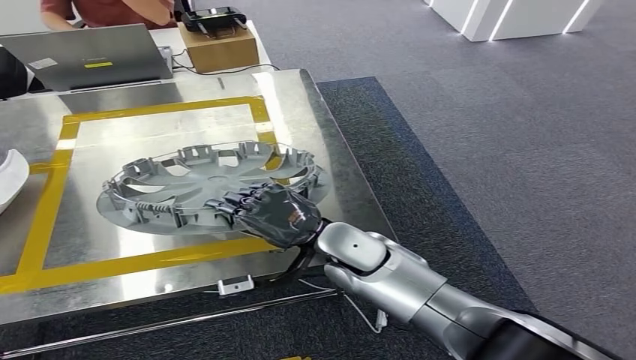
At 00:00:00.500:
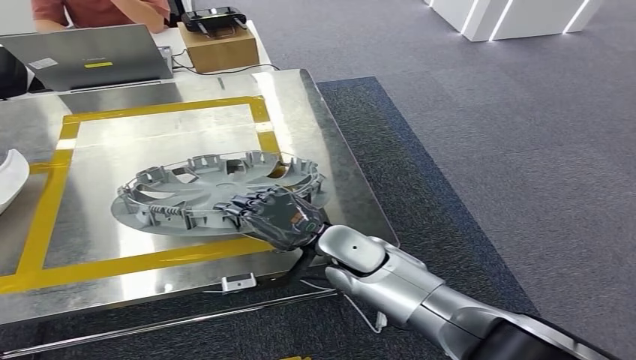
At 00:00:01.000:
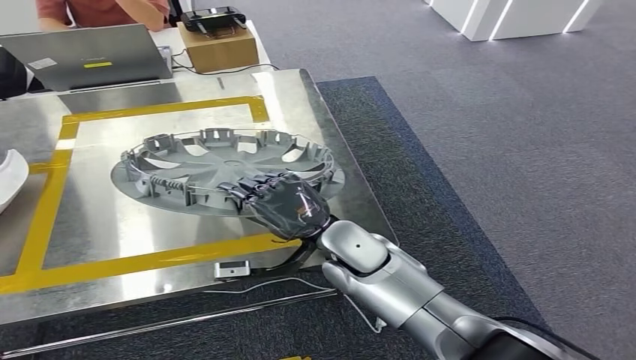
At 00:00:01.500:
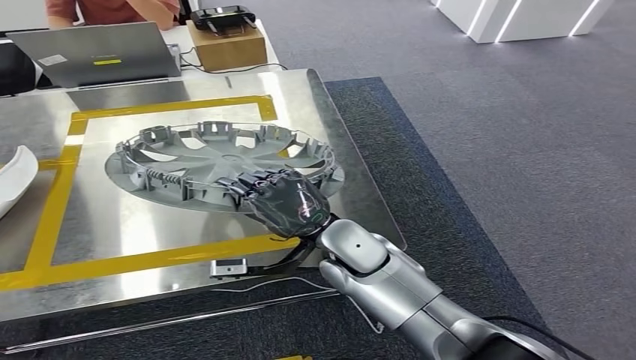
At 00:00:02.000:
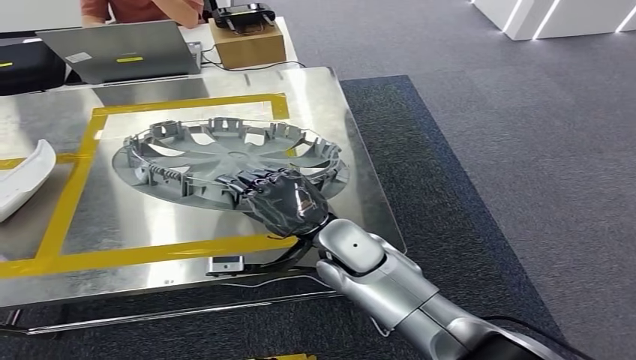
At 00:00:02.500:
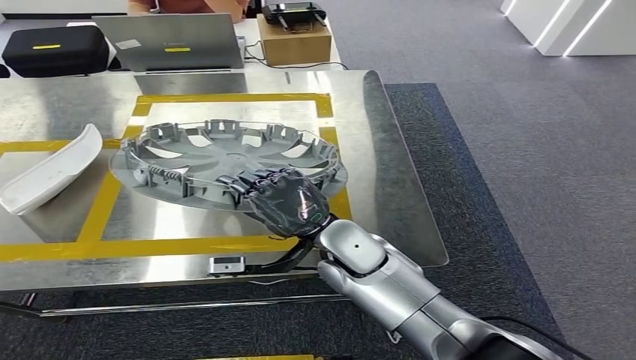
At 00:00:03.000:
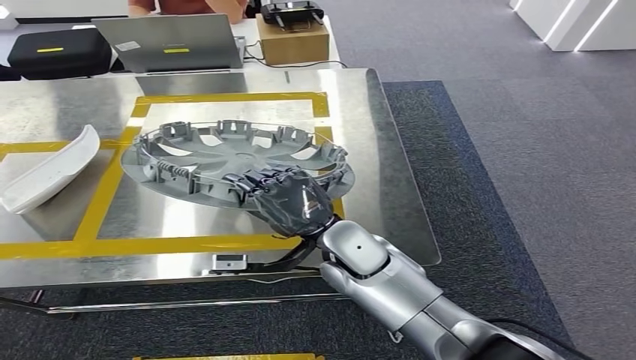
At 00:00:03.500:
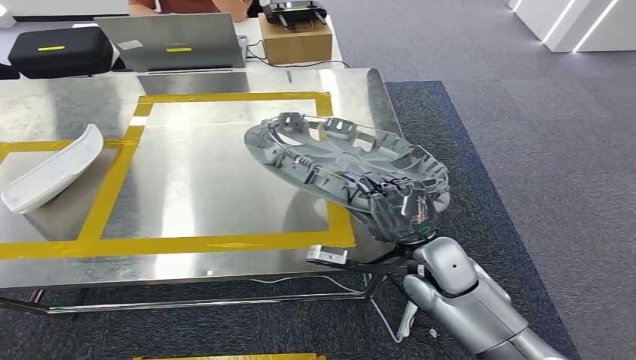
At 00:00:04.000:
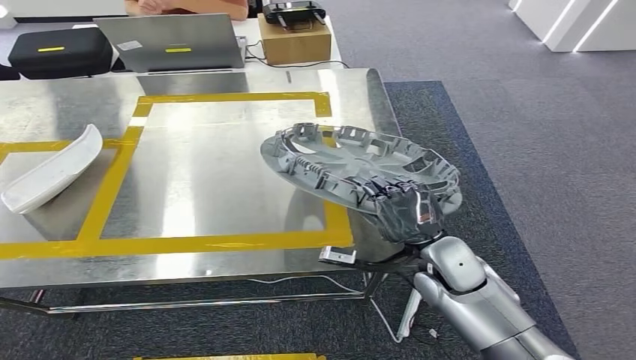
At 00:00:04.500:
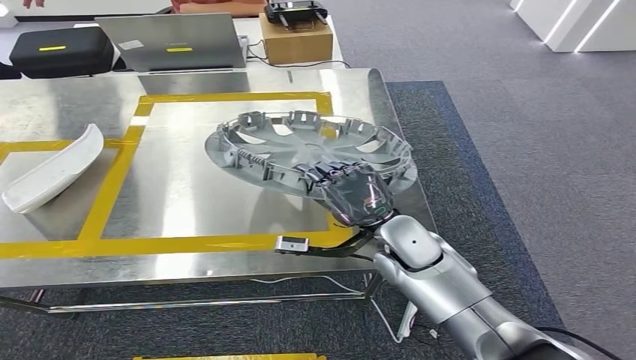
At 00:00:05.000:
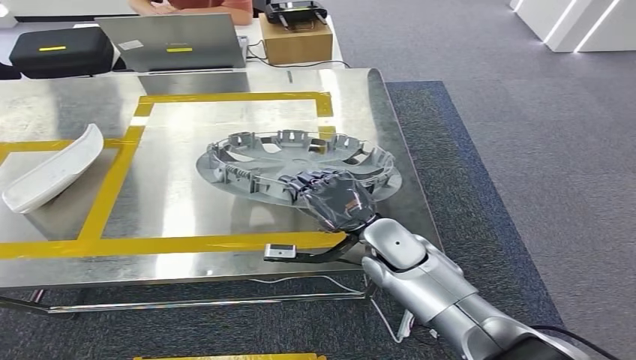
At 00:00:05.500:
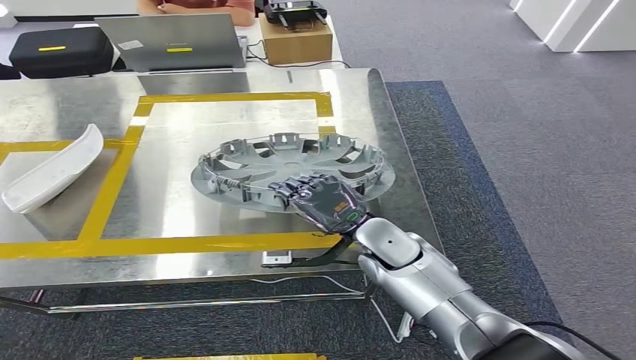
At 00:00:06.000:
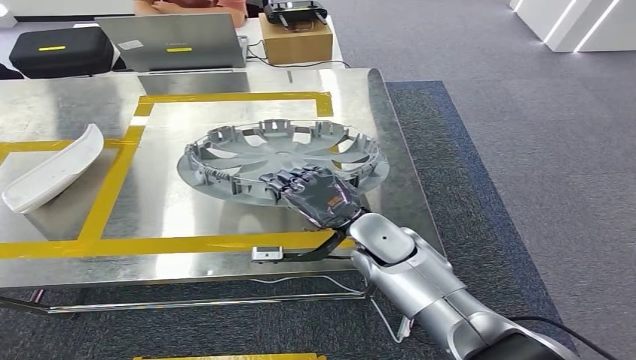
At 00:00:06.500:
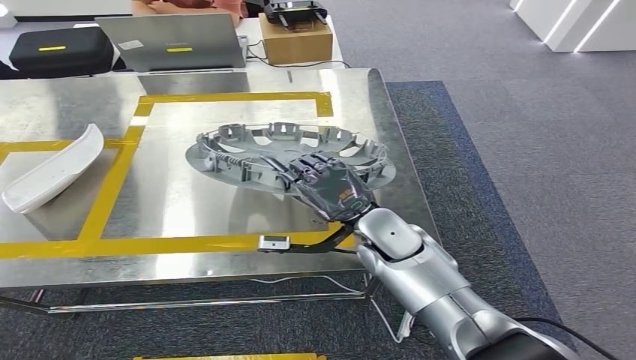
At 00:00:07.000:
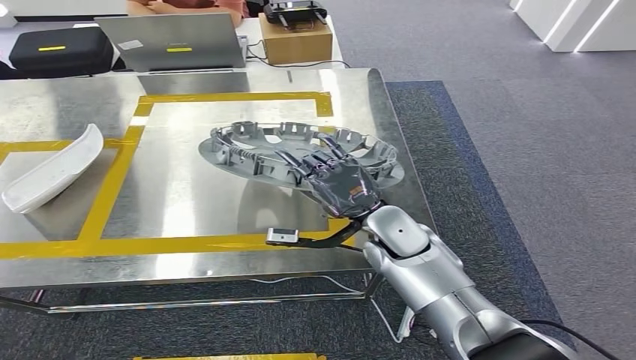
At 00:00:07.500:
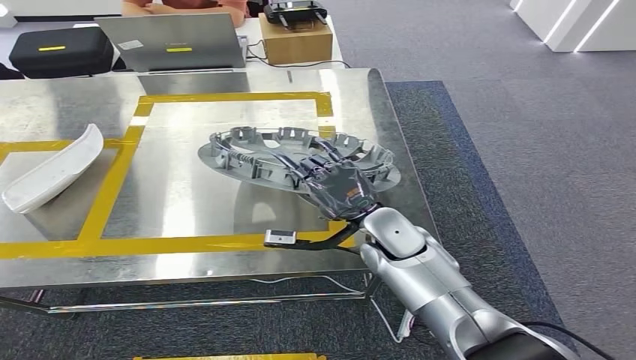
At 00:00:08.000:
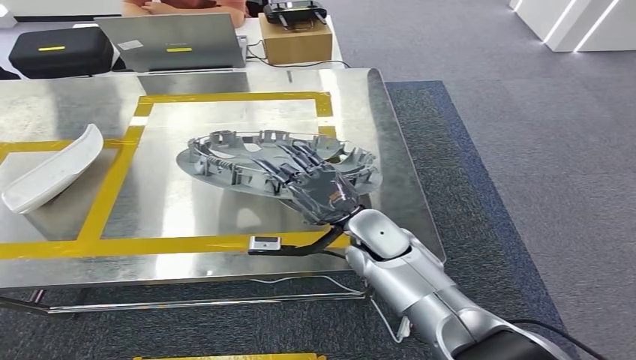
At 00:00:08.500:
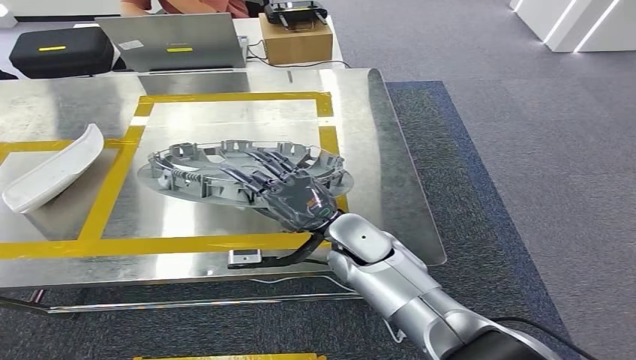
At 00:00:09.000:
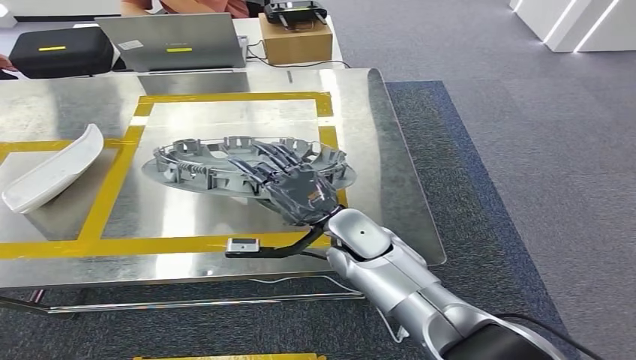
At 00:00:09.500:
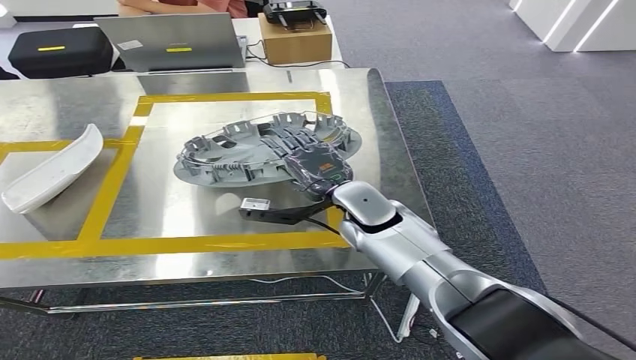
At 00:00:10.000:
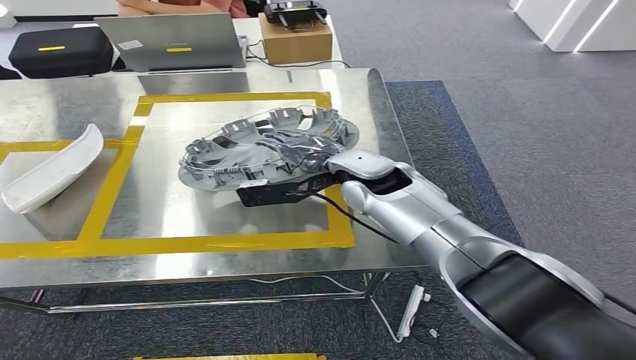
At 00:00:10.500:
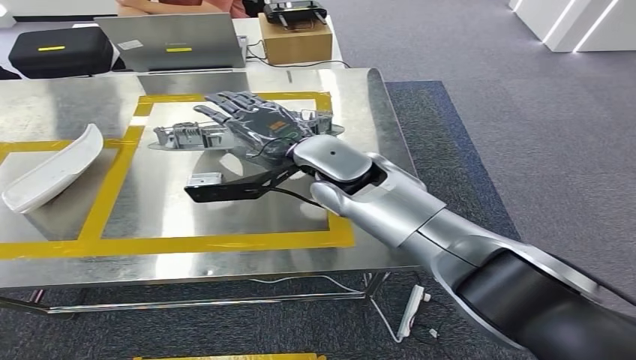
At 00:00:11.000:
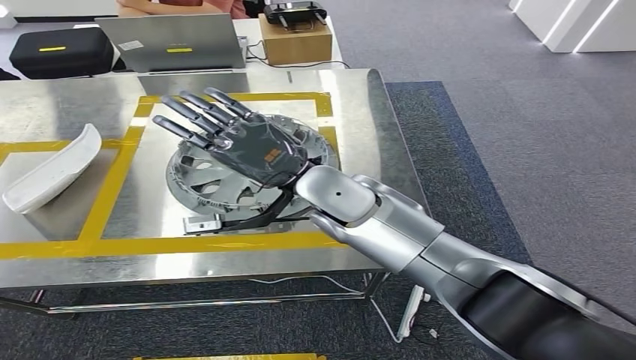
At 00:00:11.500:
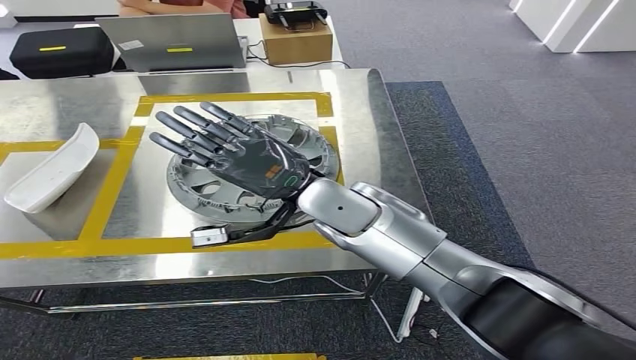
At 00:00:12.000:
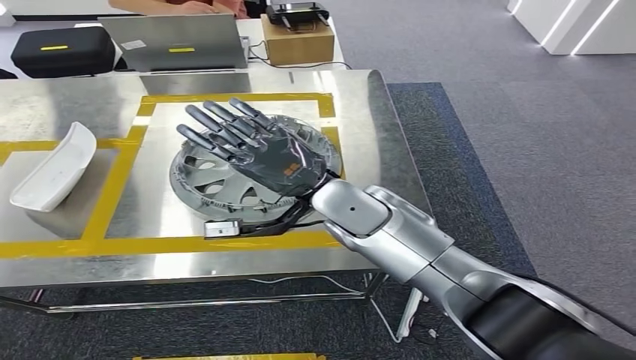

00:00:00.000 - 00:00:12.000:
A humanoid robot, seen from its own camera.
00:00:04.000 - 00:00:06.000: The right hand heads to the left, covering approximately 10 cm.
00:00:06.000 - 00:00:08.000: The hands stay close to where they were, moving slightly.
00:00:08.000 - 00:00:10.000: The right hand moves upward and forward, about 10 cm.

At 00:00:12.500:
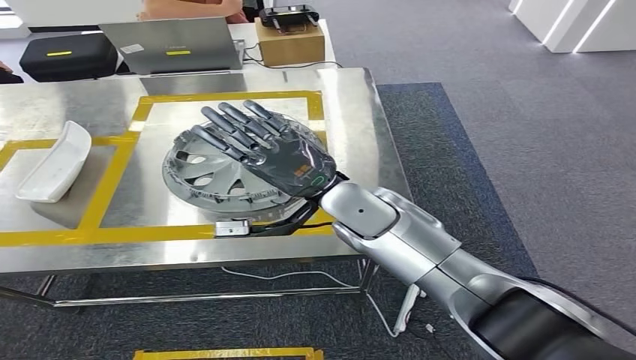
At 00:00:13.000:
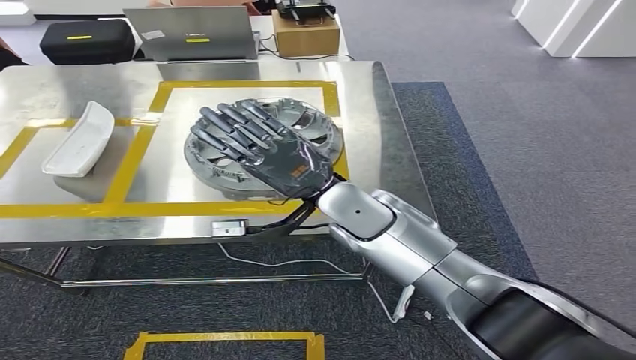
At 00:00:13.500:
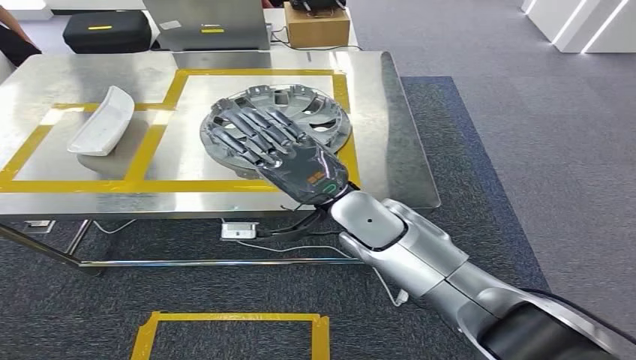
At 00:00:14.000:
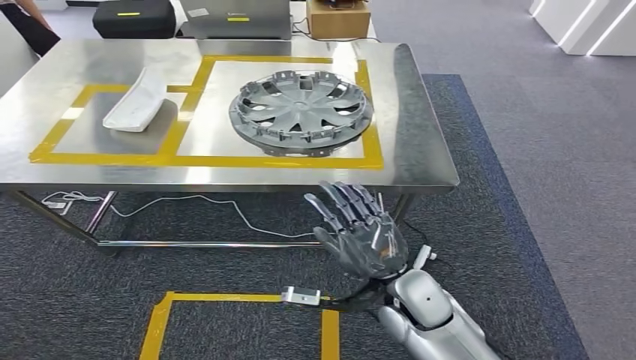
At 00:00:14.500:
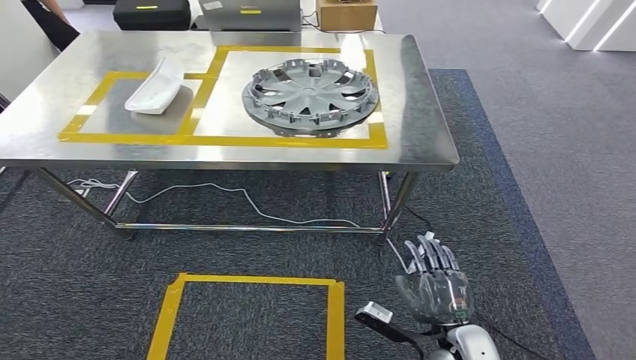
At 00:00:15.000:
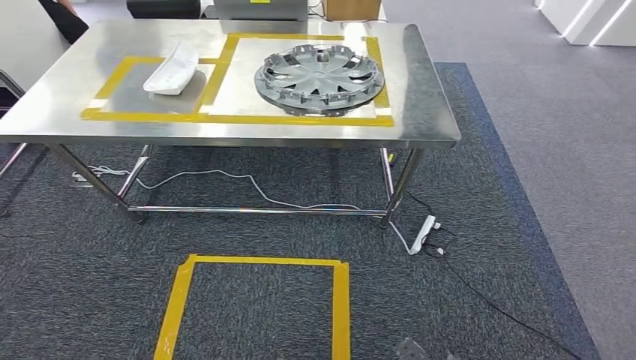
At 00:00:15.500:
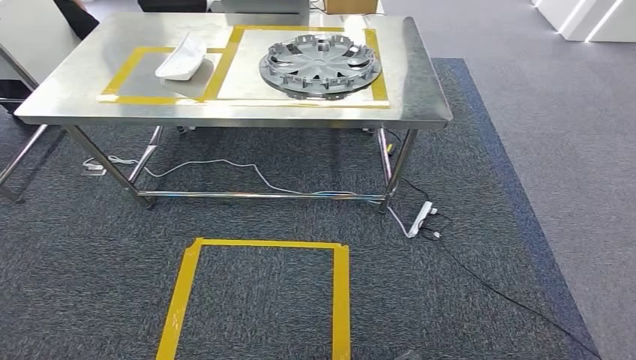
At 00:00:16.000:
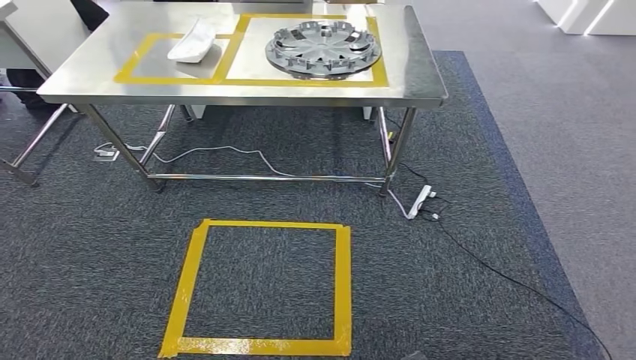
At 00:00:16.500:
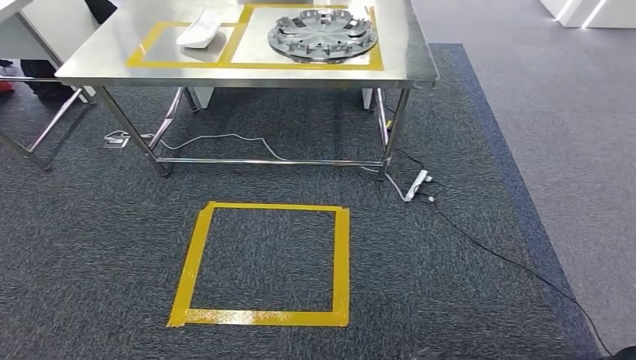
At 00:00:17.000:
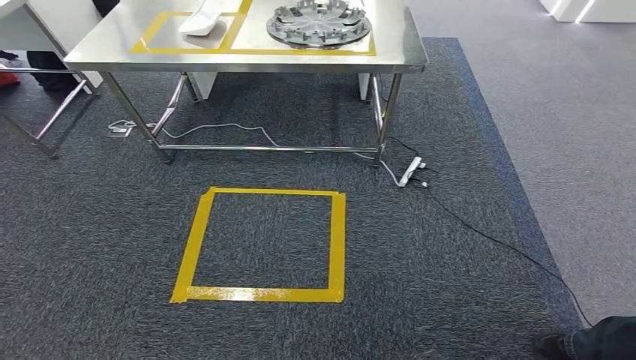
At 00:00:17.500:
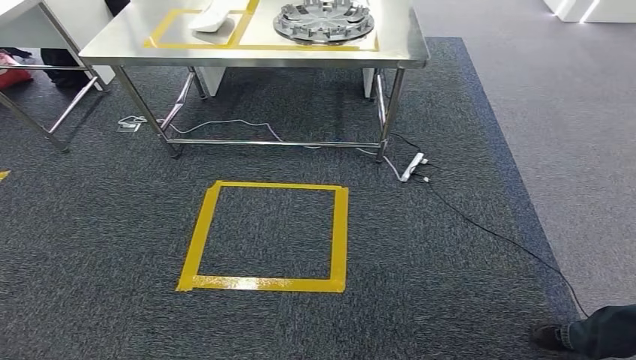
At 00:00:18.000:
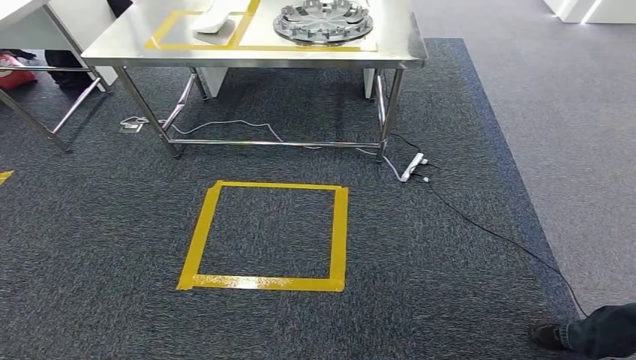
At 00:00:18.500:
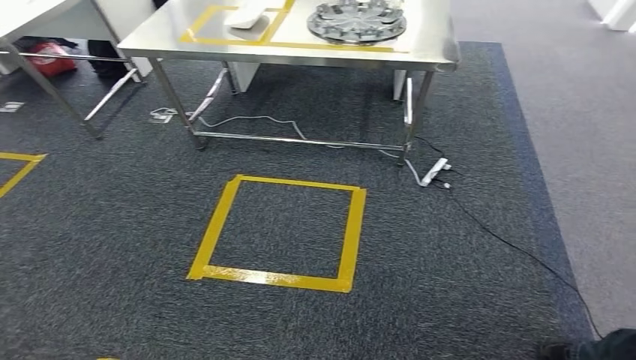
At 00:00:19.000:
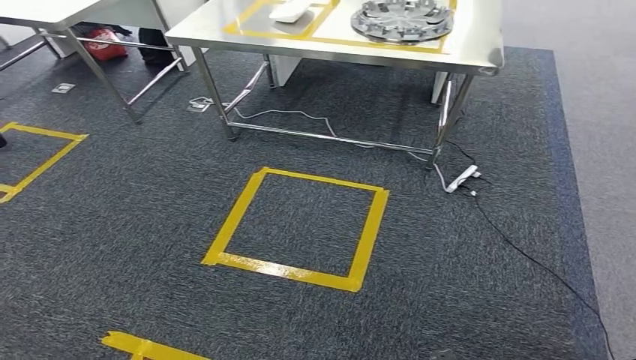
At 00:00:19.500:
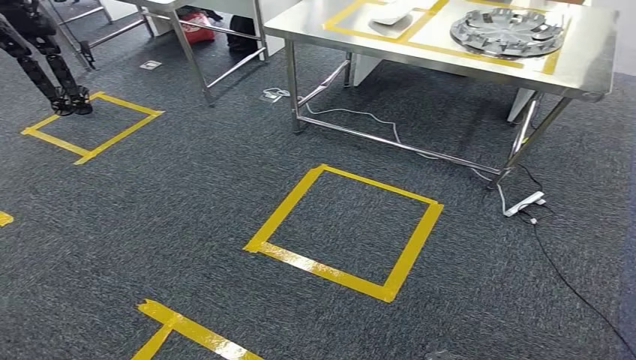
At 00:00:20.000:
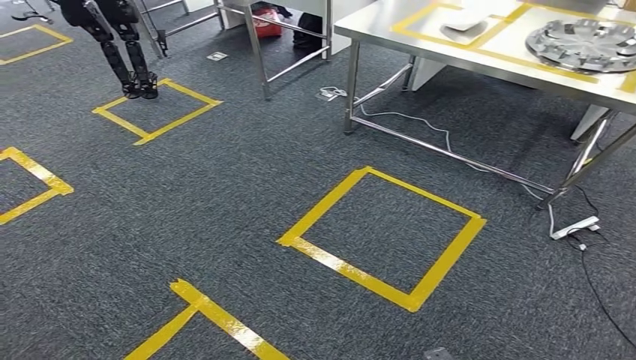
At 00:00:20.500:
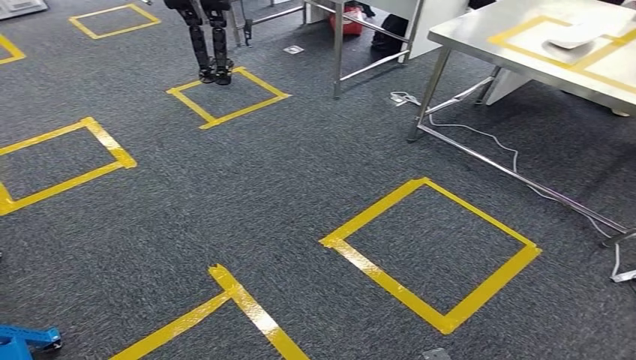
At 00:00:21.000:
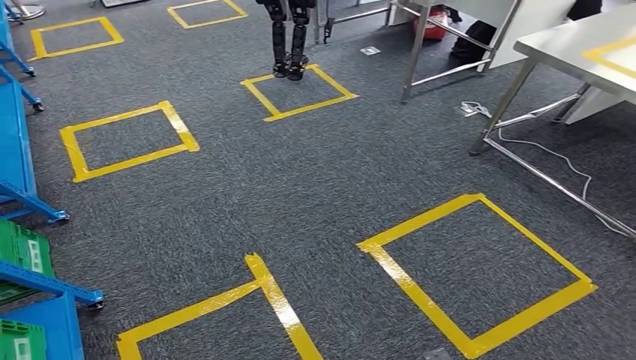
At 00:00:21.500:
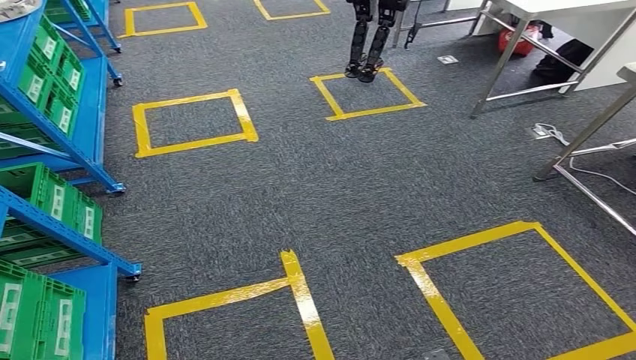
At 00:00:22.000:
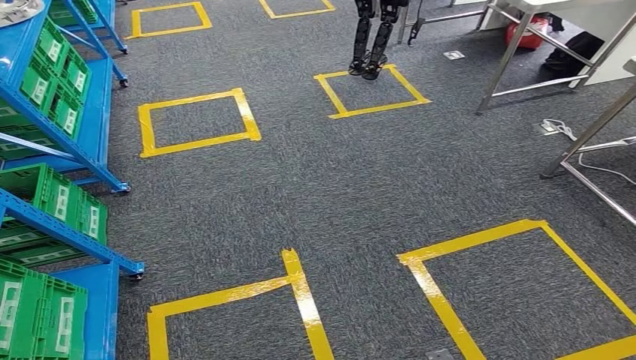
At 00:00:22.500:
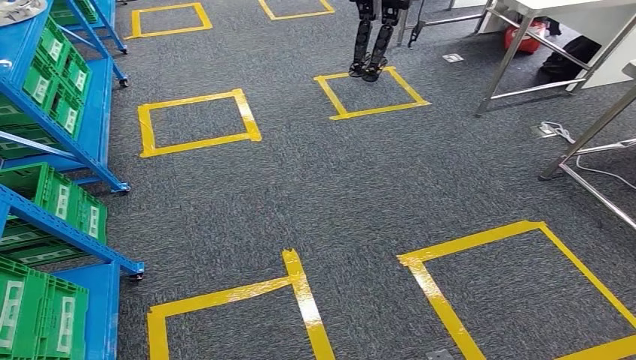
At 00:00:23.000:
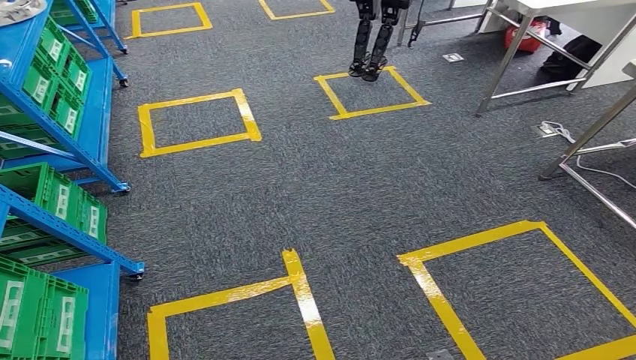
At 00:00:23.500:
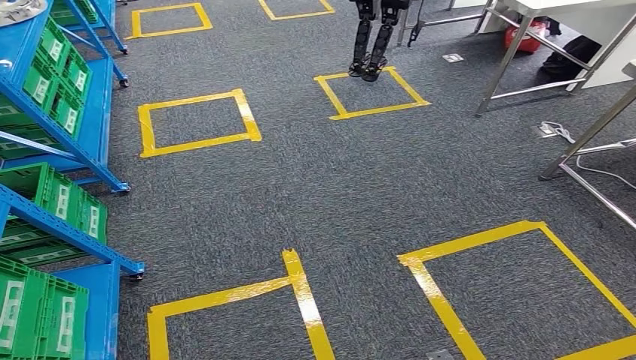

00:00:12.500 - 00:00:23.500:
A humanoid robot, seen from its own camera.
00:00:21.500 - 00:00:23.500: Both hands stay put.
